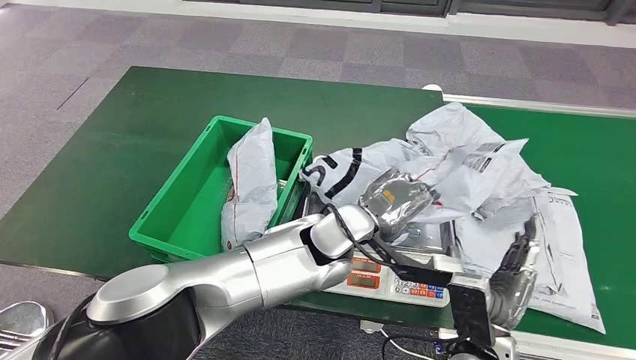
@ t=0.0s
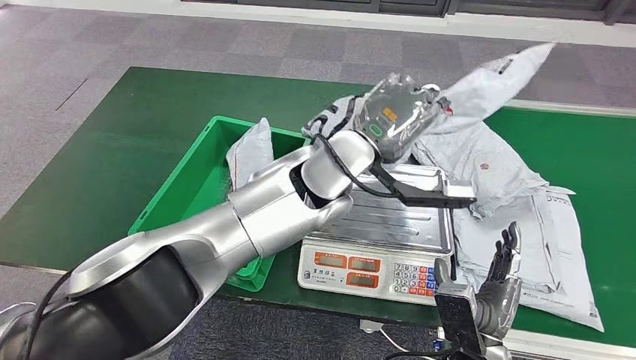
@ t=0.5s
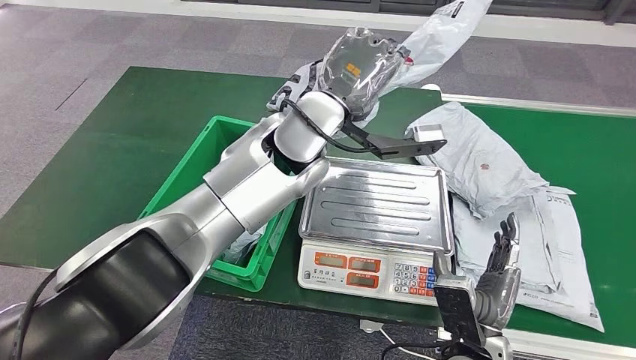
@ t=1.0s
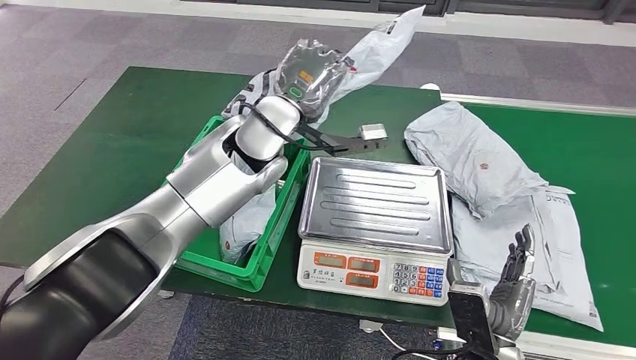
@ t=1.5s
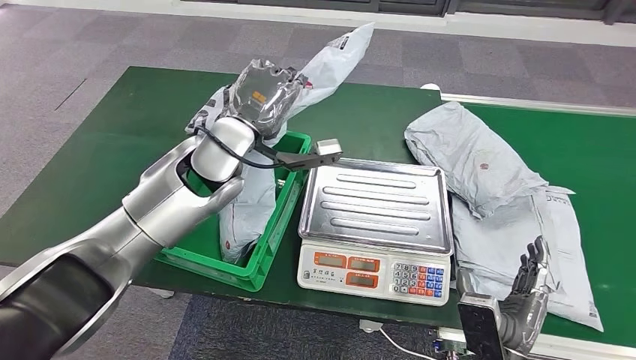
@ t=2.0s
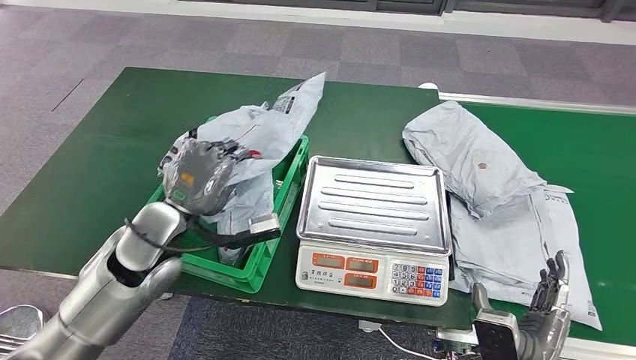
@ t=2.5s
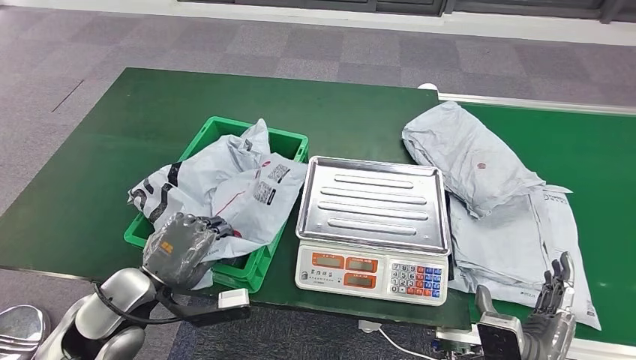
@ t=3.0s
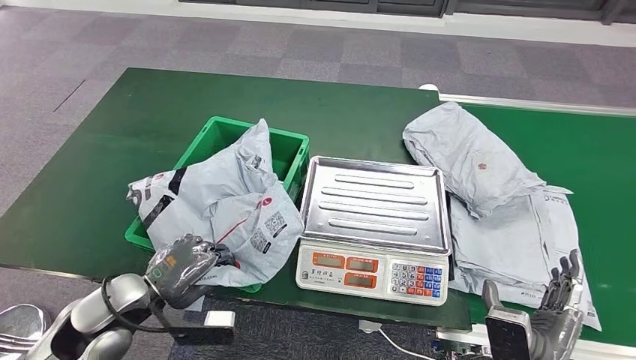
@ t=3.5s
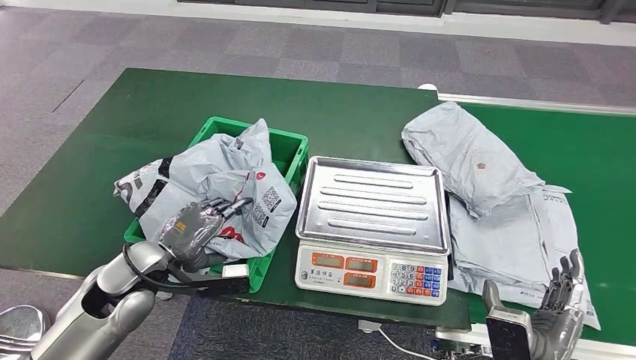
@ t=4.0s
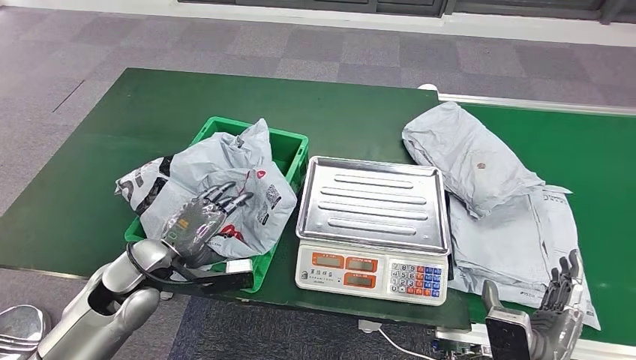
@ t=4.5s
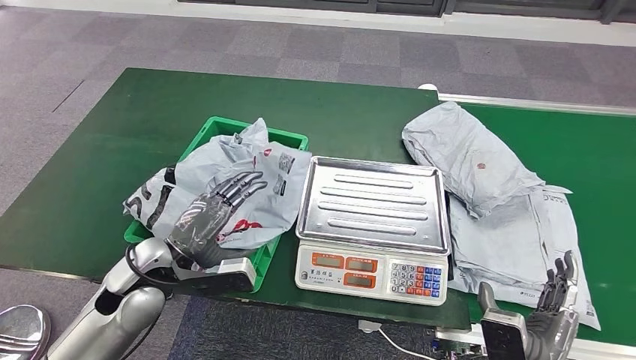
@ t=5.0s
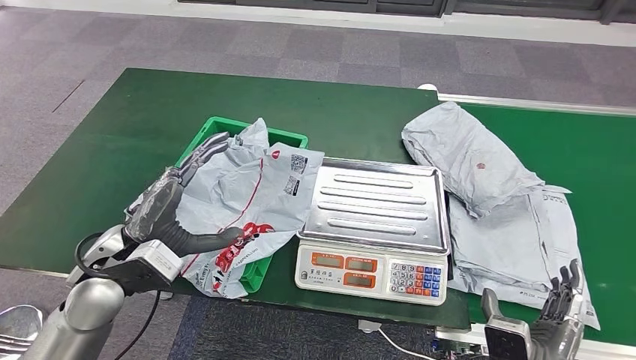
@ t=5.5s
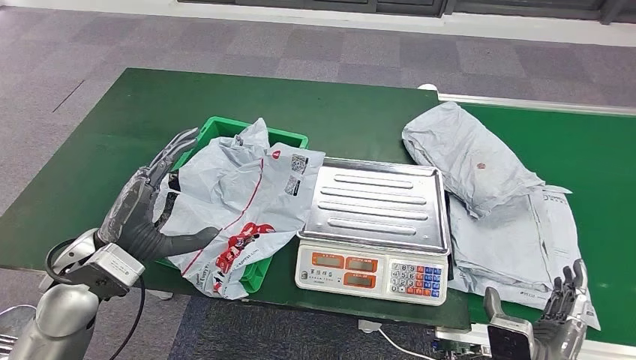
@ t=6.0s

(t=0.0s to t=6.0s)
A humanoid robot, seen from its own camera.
Step, t=1.0s - t=6.0s: Put the parcel inside the courier box.
t=4.0s - t=6.0s: The left hand moves upward, roughly 5 cm.
